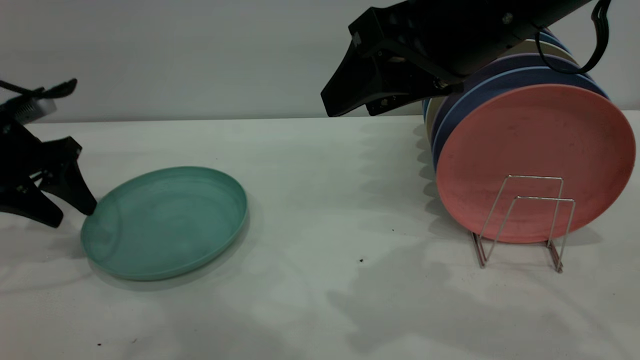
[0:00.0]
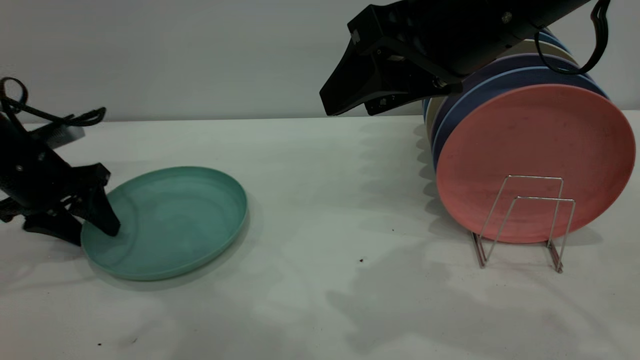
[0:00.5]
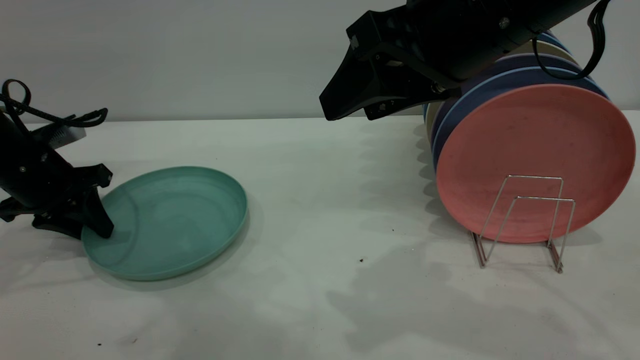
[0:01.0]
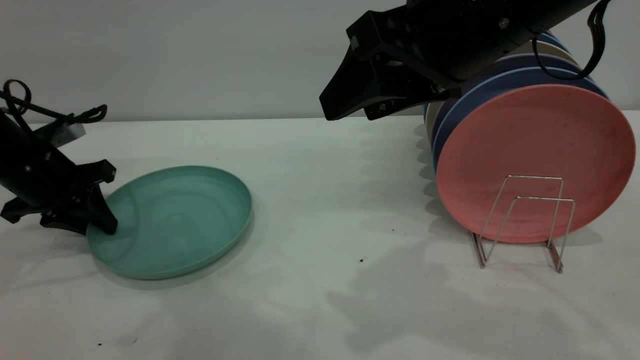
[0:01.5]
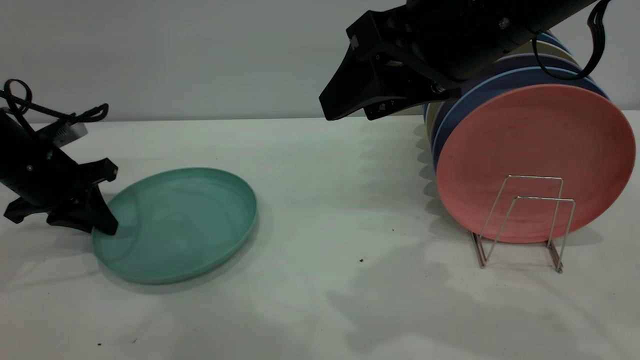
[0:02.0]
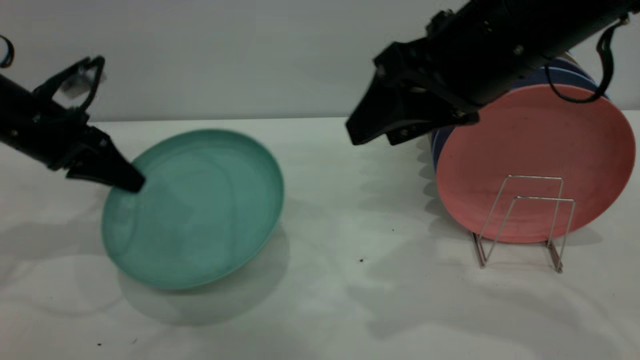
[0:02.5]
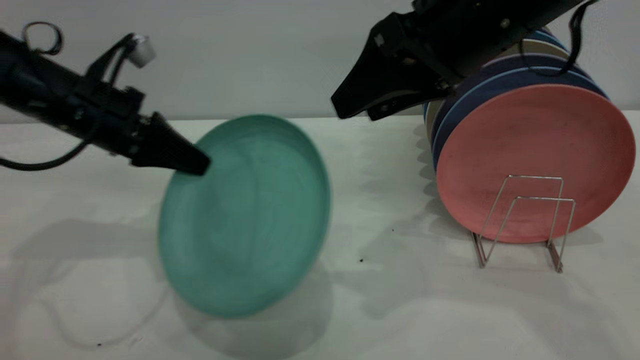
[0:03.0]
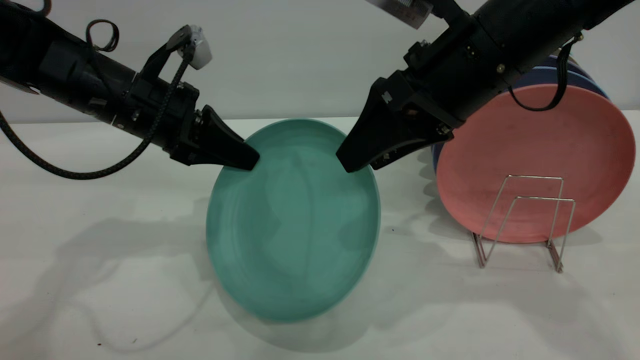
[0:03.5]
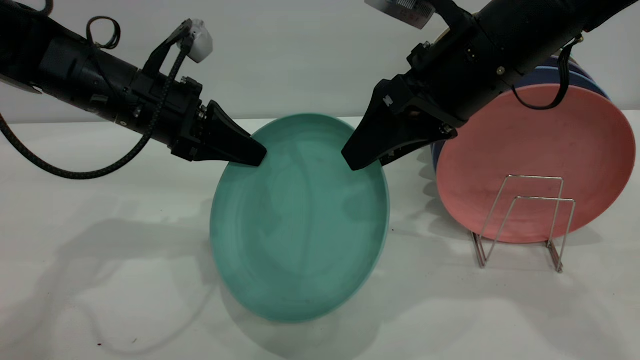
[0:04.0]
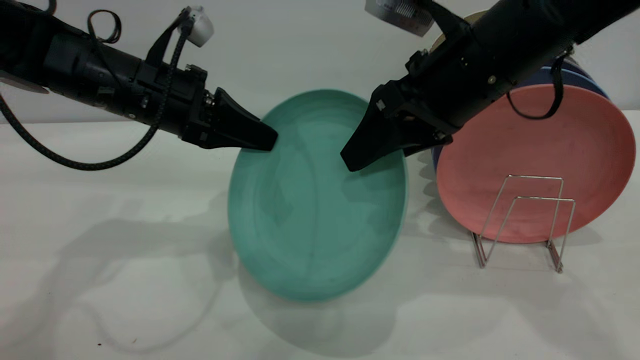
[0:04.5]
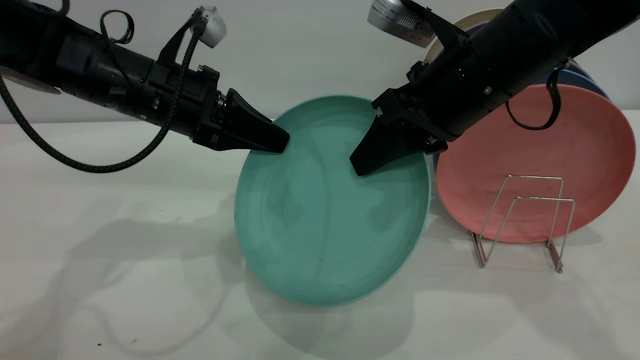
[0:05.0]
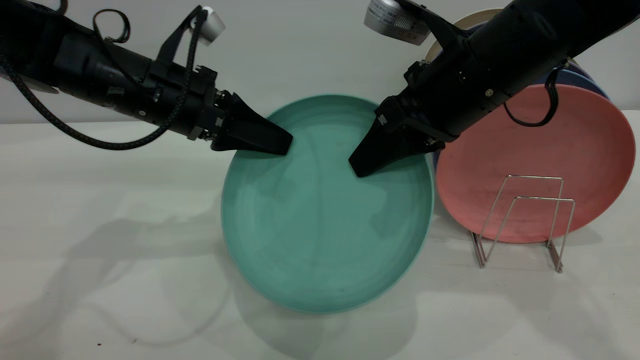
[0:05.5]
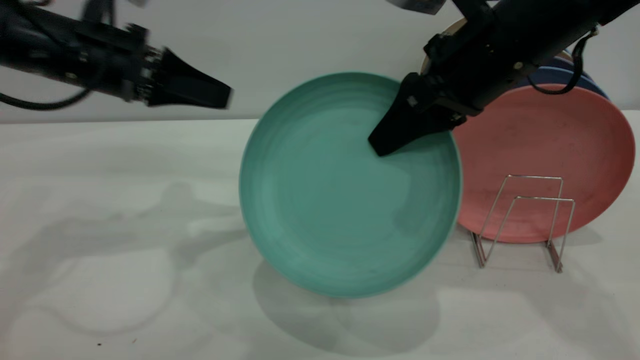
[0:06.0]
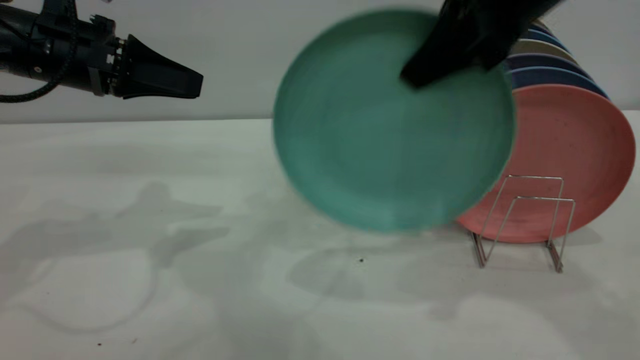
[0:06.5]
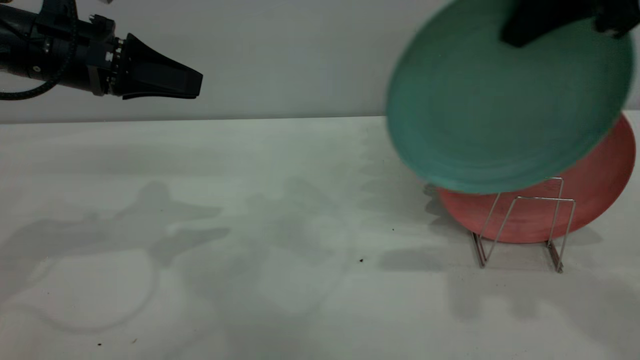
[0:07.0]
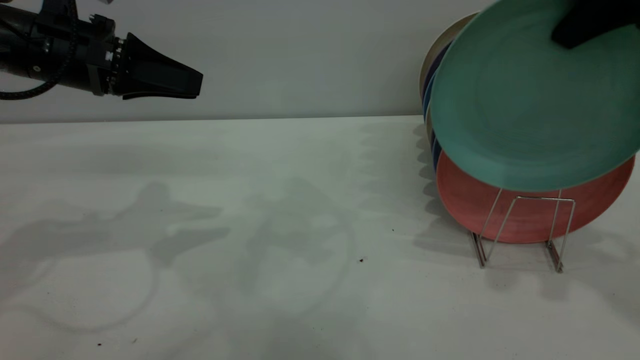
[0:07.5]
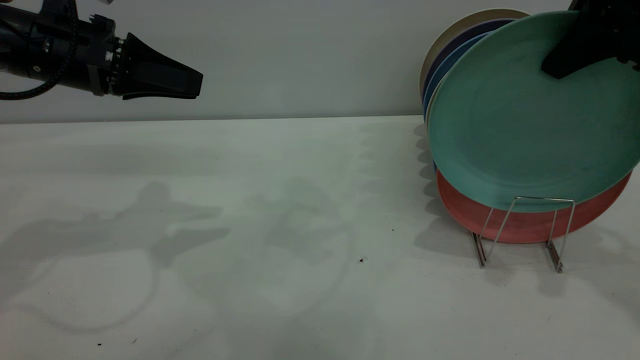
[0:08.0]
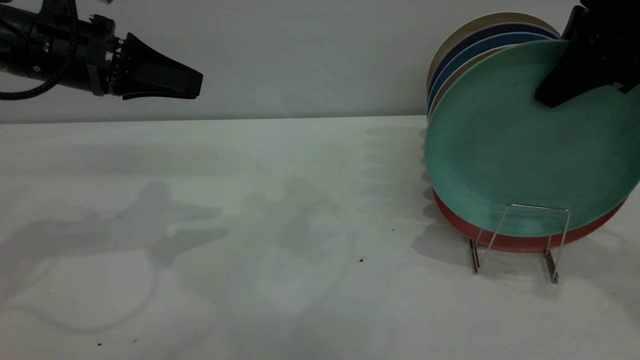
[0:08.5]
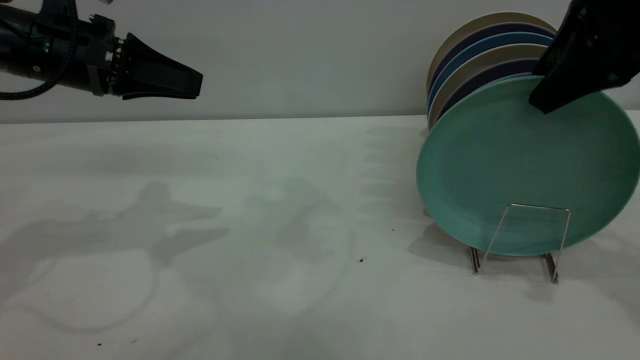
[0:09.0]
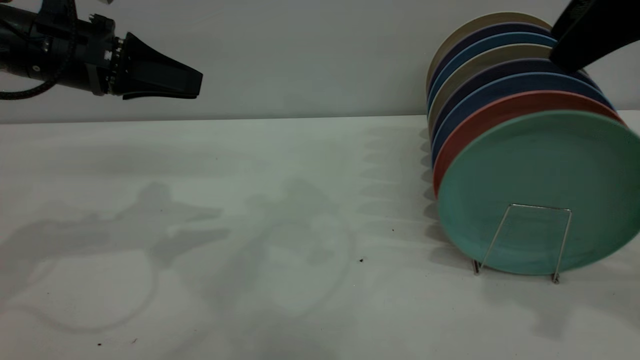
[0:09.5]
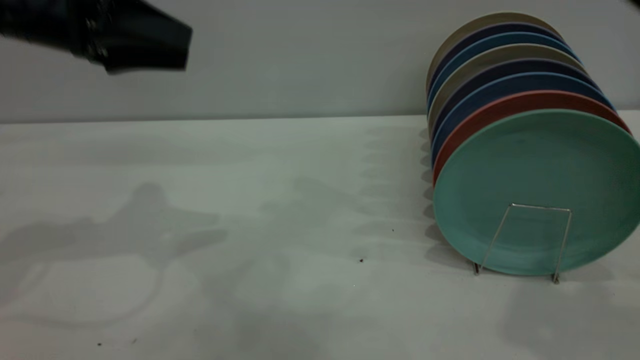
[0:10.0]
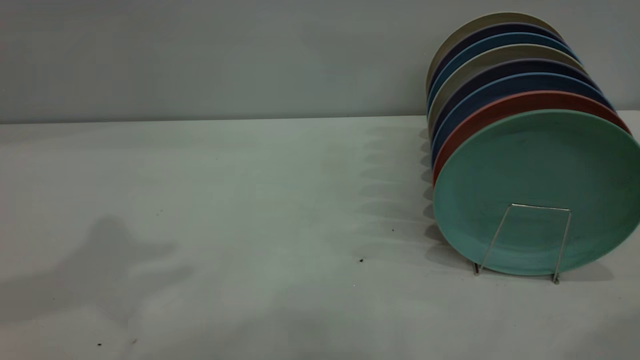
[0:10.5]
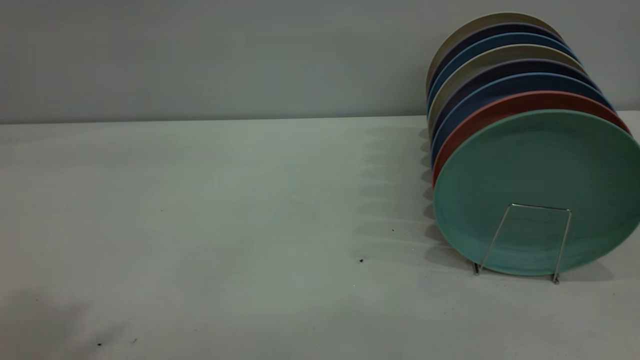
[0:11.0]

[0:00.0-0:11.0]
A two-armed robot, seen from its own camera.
Task of the whole recording: the left gripper grasp the green plate, the left gripper pass the green plate to the right gripper, and the right gripper place the green plate on the plate rack.
Step, 0:00.0 to 0:02.5: Pick up the plate with the left gripper.
Step, 0:03.0 to 0:06.0: Pass the plate from the left gripper to the right gripper.
Step, 0:06.5 to 0:09.5: Place the plate on the shelf.
0:00.0 to 0:02.0: The left gripper closes its fingers.
0:02.0 to 0:03.5: The left gripper shifts approximately 15 cm to the right and upward, while the right gripper heads downward, covering roughly 5 cm.
0:03.5 to 0:05.5: The left gripper opens its fingers. The right gripper closes its fingers.
0:05.5 to 0:07.5: The right gripper is displaced to the right and upward by about 20 cm, while the left gripper heads to the left, covering about 10 cm.
0:07.5 to 0:09.0: The right gripper opens its fingers.
0:09.0 to 0:11.0: The right gripper shifts about 25 cm backward, and closes up. The left gripper travels upward and backward by roughly 35 cm.
